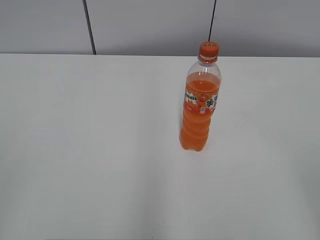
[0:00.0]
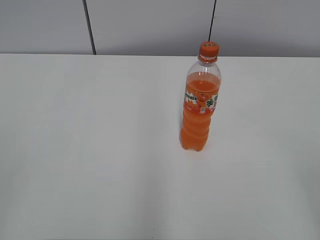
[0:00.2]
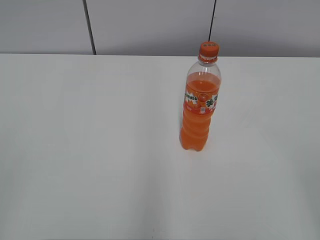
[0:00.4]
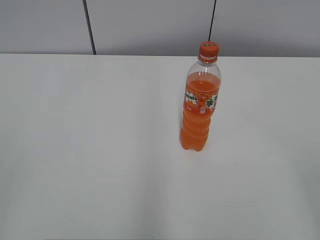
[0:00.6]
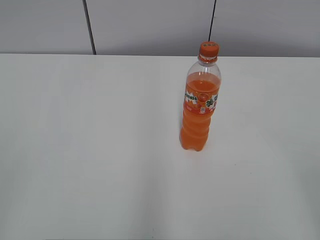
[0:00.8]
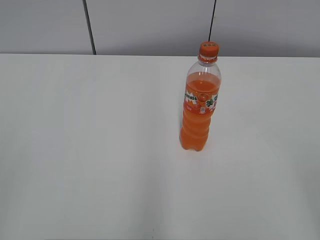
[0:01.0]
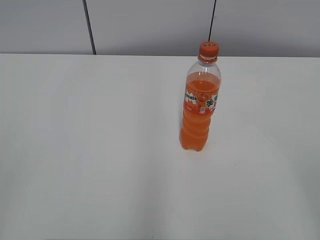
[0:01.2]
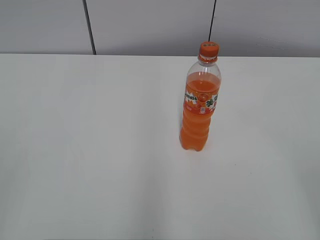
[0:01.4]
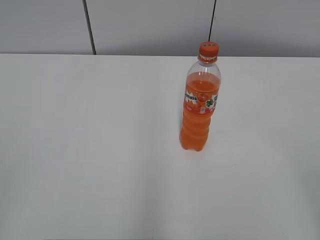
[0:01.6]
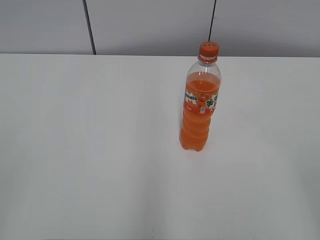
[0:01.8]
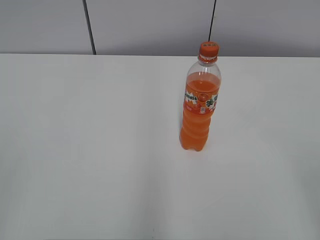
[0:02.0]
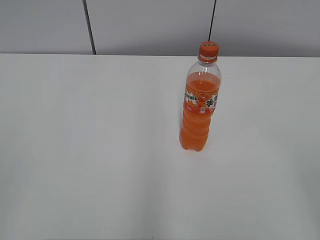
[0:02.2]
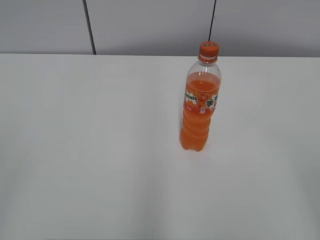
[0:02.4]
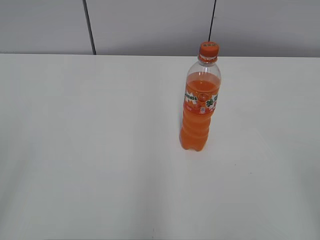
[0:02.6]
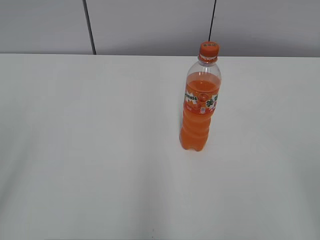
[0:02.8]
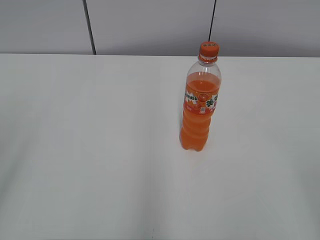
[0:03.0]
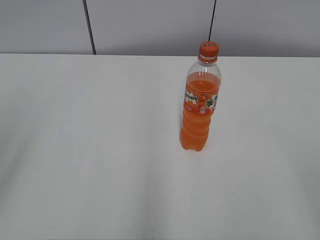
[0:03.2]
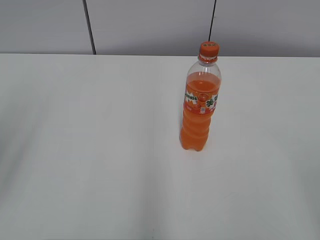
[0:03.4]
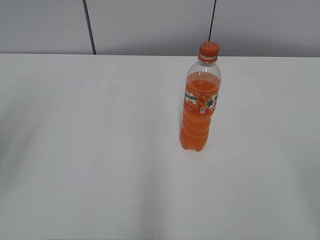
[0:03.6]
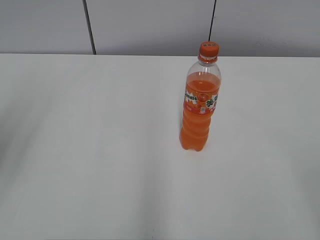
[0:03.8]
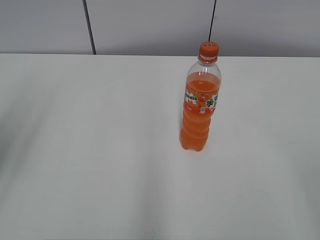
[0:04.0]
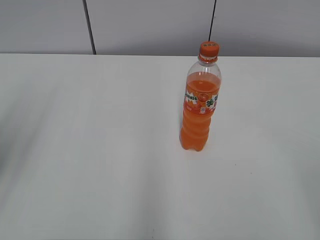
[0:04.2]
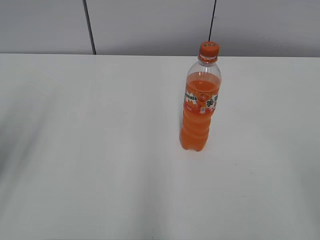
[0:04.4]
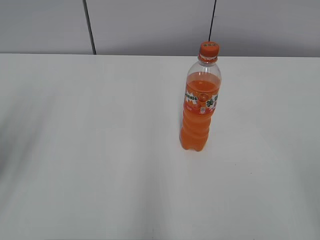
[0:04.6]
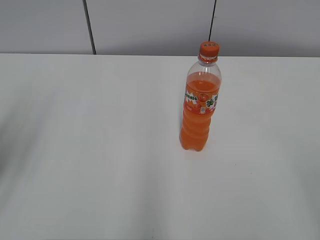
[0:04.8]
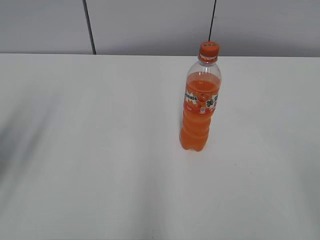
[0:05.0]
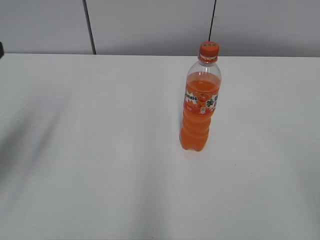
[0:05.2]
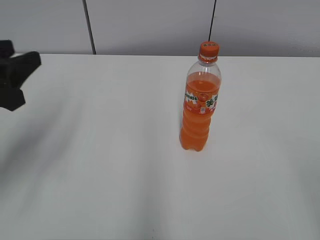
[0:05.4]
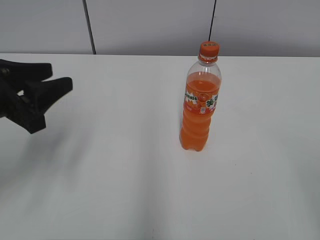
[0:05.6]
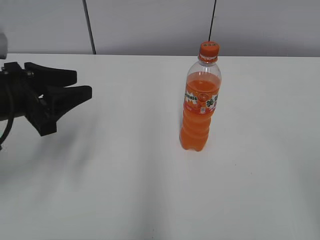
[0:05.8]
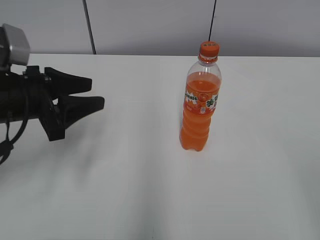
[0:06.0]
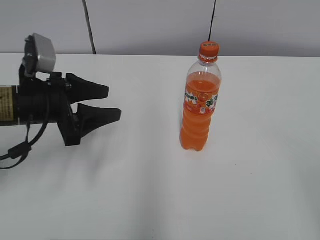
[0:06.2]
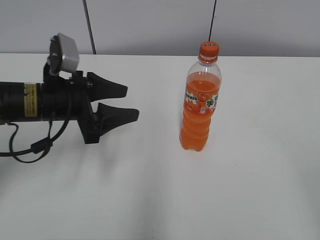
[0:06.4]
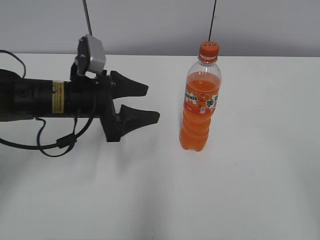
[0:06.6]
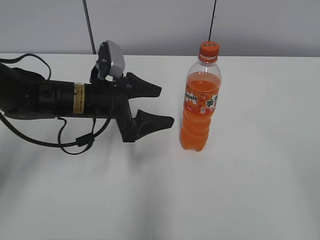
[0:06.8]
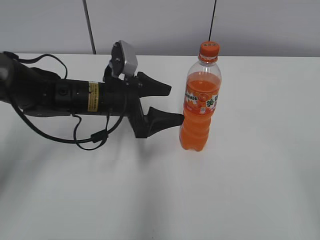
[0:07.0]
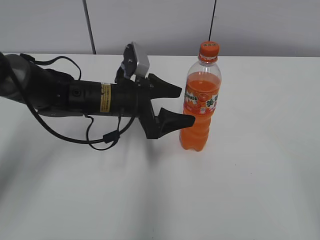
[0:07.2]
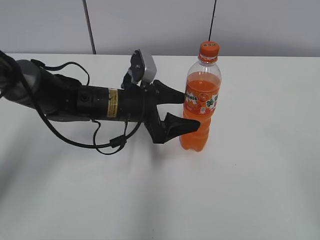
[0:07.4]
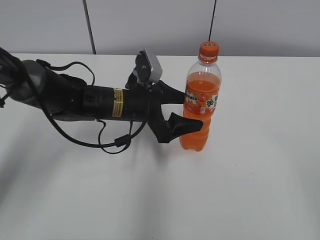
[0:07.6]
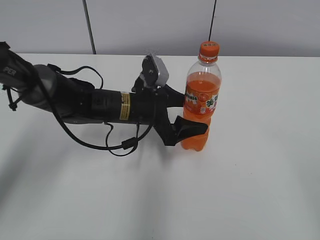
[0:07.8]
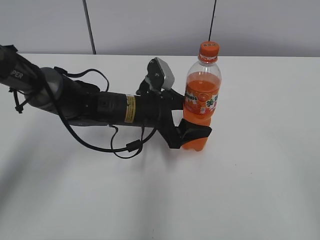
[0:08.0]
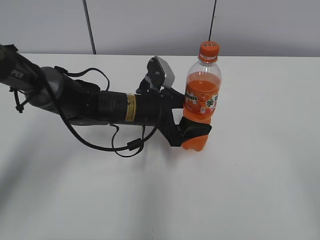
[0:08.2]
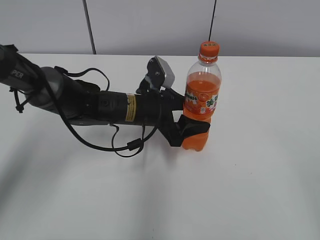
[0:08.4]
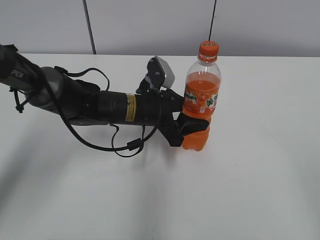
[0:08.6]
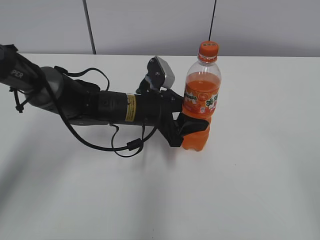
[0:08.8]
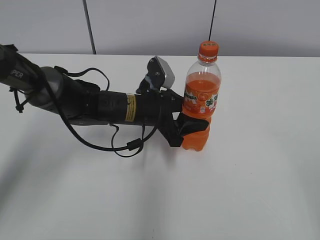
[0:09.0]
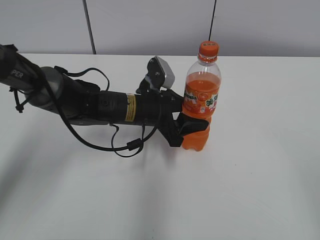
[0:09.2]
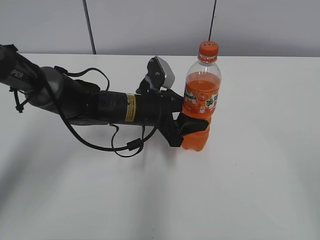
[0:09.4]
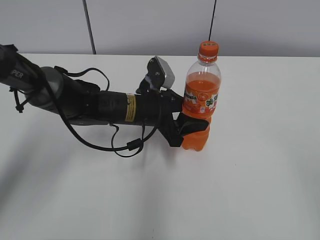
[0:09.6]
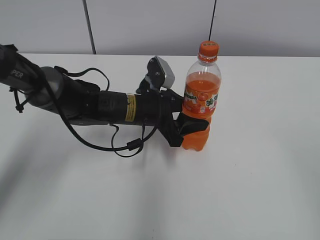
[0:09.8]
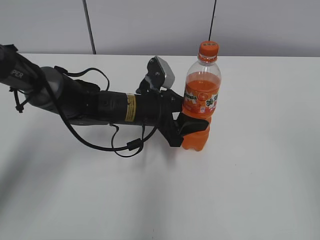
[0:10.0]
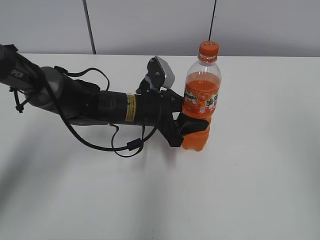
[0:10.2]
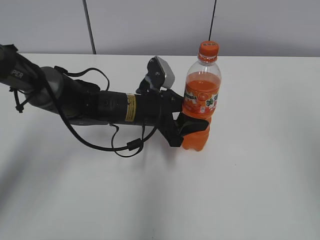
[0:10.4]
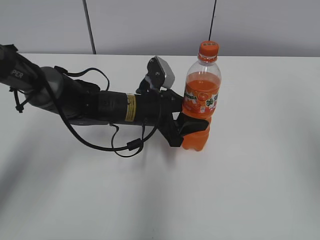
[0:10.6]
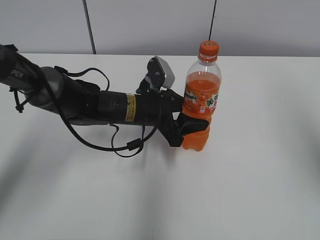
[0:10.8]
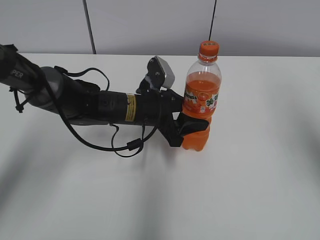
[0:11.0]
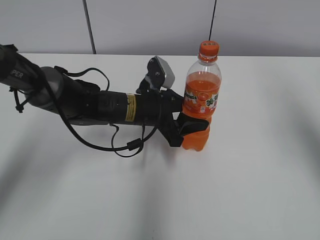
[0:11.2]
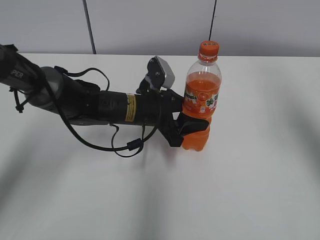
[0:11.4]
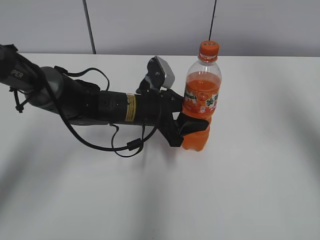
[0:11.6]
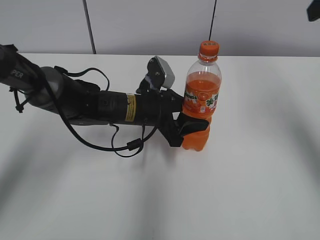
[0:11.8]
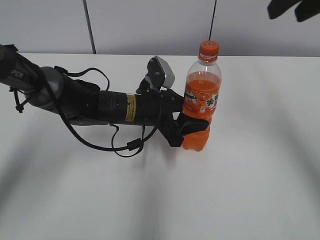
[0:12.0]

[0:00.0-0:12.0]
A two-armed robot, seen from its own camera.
Step, 0:00.0 to 0:08.6: Grab the Mirinda with the left hand.
0:04.4 to 0:06.0: The left gripper shifts roughly 15 cm downward, forward and to the right.
0:06.0 to 0:07.6: The left gripper moves to the right, forward and downward, roughly 20 cm, and opens.
0:07.6 to 0:09.0: The left gripper closes.
0:10.4 to 0:12.0: The right gripper goes roughly 25 cm forward and to the left.

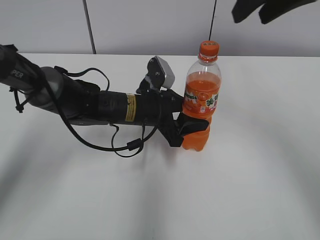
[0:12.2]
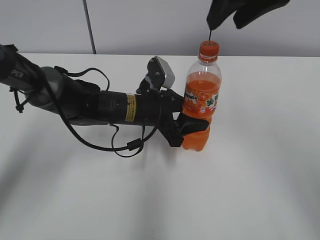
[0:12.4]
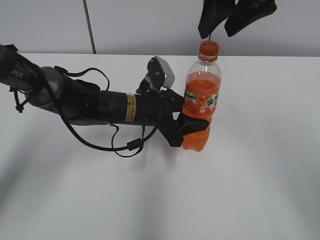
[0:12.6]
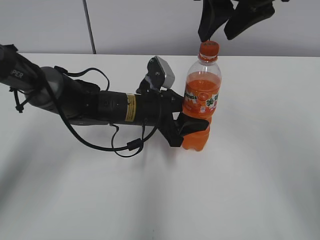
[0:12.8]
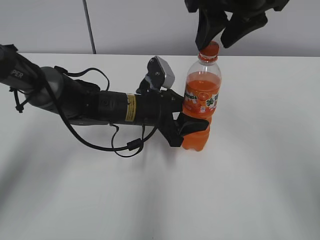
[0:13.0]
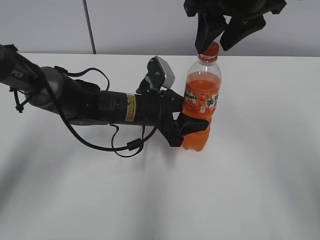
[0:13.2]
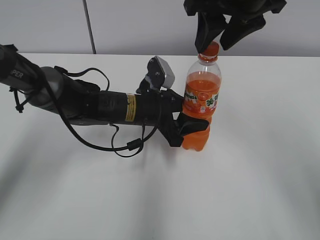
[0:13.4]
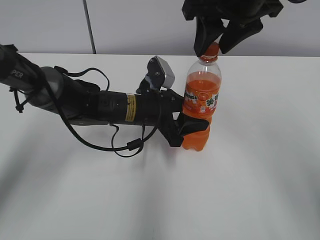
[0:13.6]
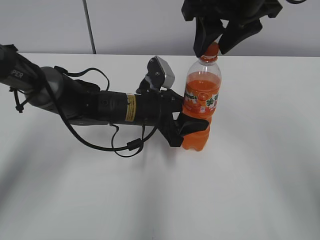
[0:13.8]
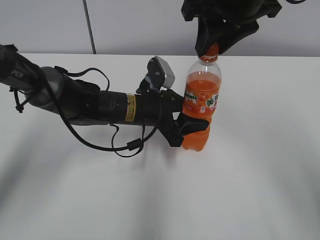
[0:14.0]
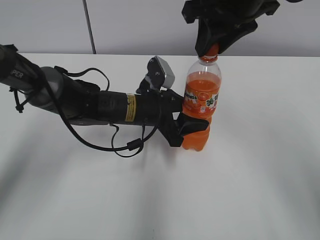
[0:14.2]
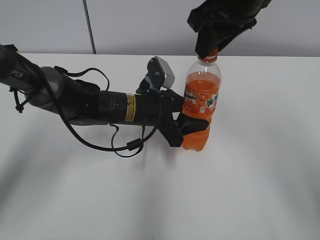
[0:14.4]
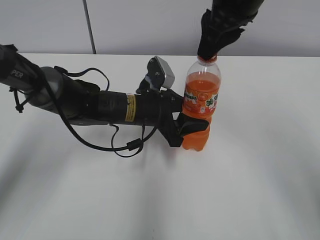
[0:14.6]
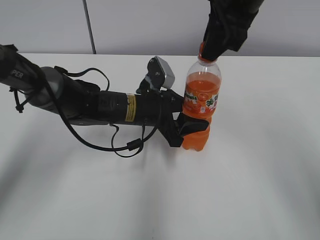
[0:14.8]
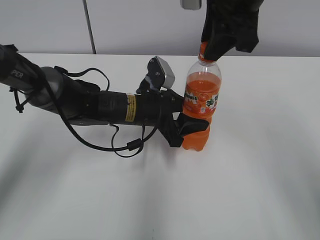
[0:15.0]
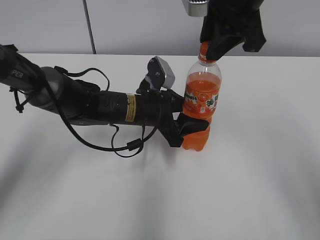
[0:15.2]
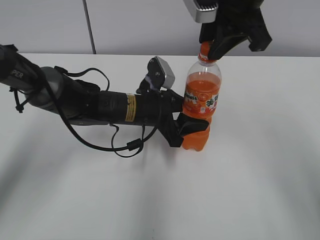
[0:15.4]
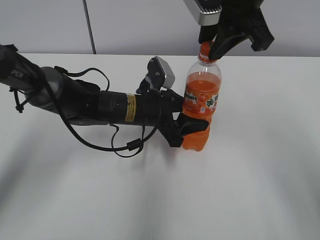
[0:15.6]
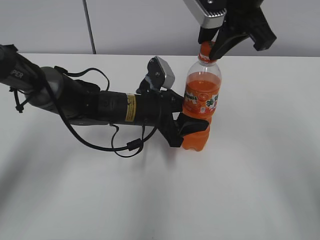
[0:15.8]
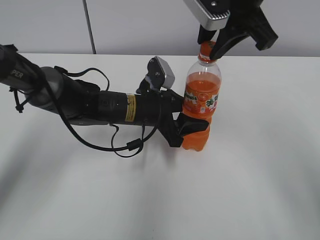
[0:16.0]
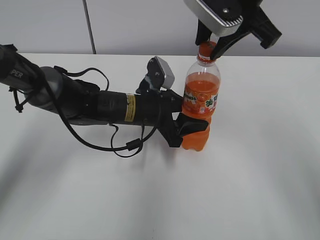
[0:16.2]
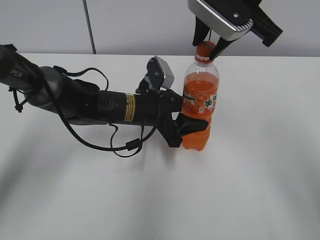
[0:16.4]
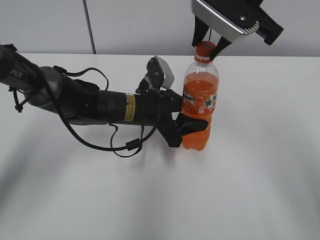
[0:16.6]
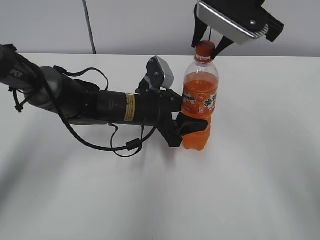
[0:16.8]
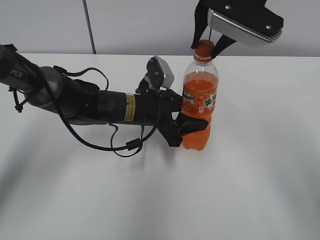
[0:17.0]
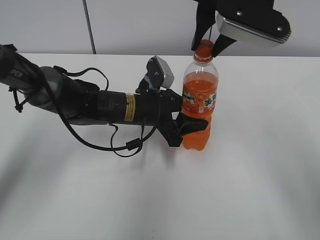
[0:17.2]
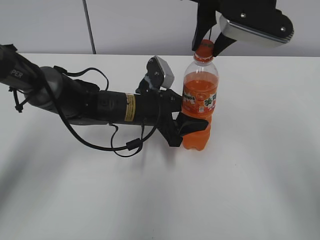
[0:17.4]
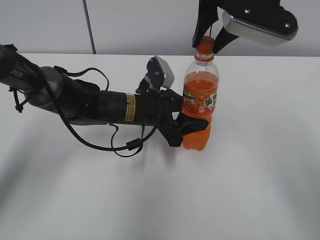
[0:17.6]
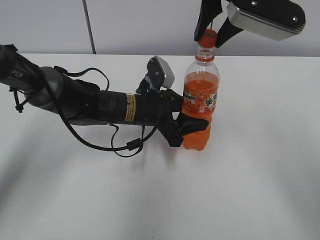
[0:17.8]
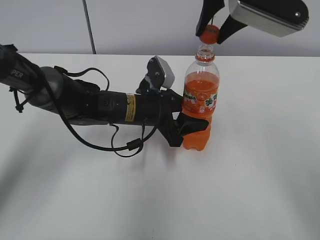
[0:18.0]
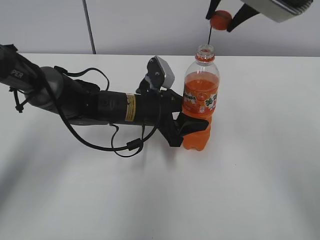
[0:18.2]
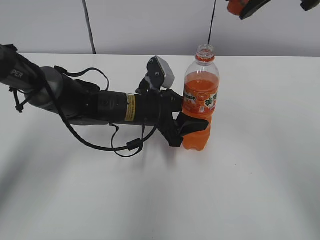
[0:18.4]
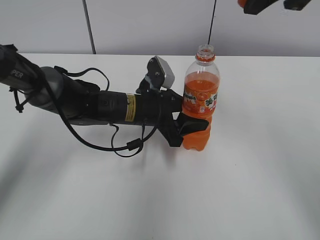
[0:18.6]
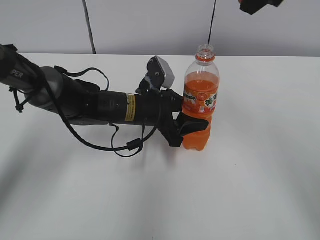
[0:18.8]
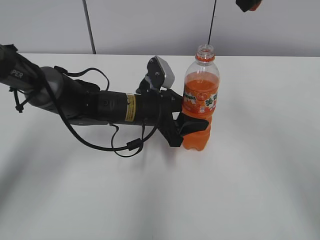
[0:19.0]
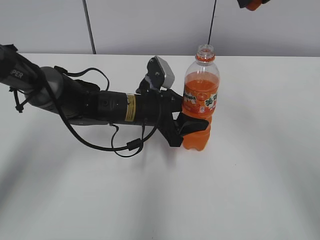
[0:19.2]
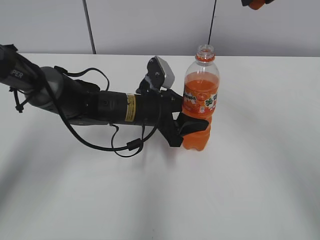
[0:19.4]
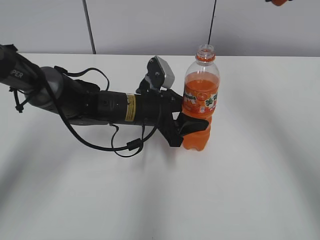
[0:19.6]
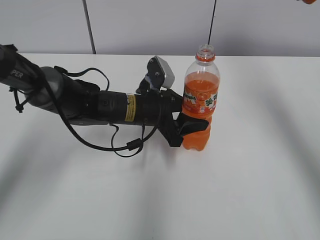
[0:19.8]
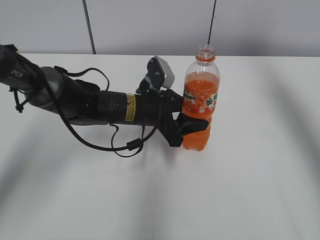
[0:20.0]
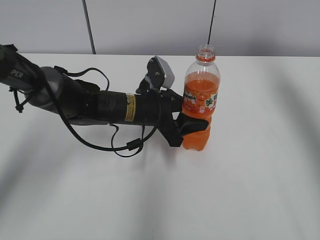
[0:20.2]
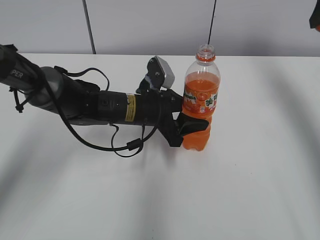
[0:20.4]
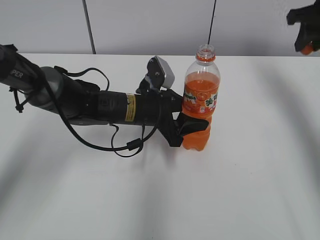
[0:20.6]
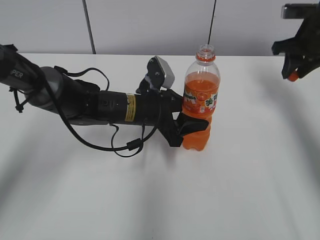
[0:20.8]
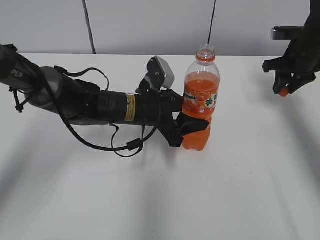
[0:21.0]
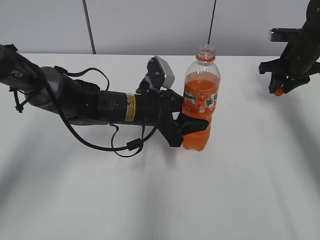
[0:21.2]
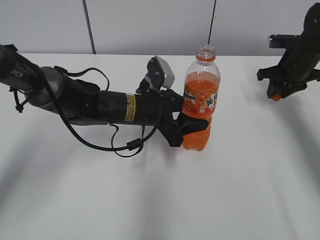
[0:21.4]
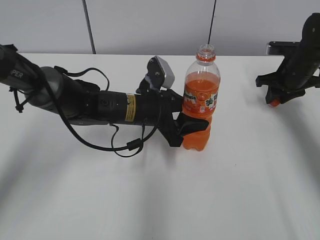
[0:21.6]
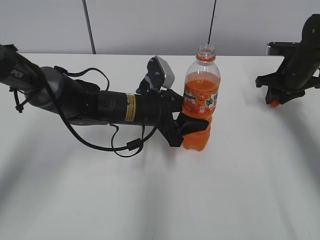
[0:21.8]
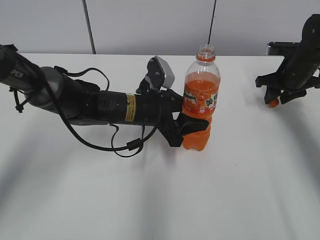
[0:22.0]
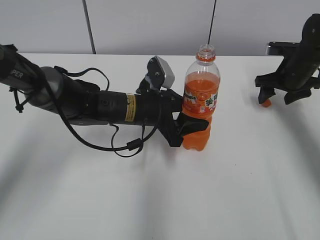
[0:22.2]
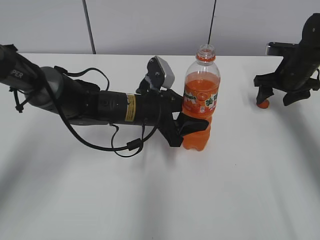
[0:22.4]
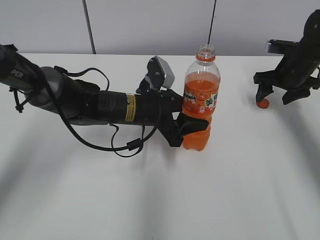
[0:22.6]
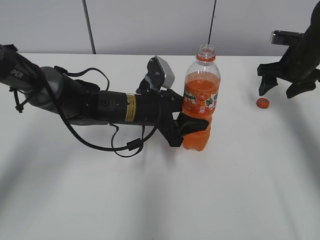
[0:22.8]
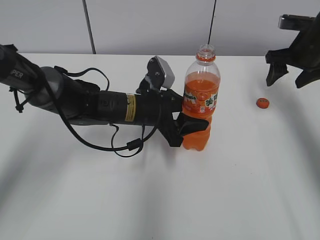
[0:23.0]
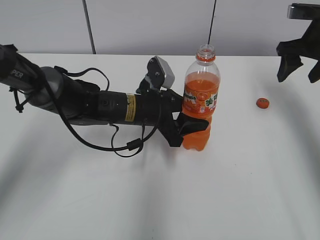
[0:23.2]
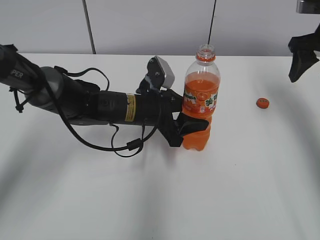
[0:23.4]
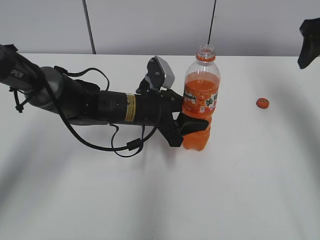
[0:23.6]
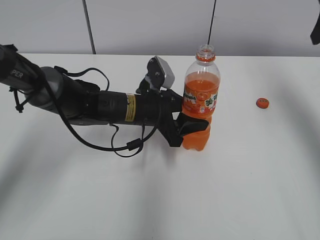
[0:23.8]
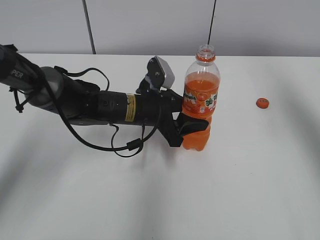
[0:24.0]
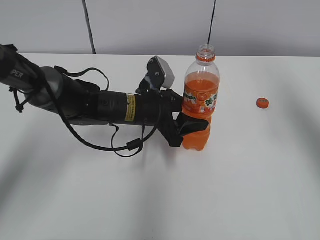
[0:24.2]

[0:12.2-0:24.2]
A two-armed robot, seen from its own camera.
Step, 0:18.0 to 0:22.2: Place the bottle cap on the right.
0:12.2 to 0:13.8: The right gripper shifts approximately 10 cm downward and to the left.
0:13.8 to 0:15.2: The right gripper closes.
0:16.6 to 0:18.2: The right gripper ends up some 5 cm from where it was.
0:18.2 to 0:19.8: The right gripper goes approximately 10 cm to the right.
0:19.8 to 0:21.2: The right gripper moves downward and forward, roughly 25 cm.
0:21.2 to 0:22.6: The right gripper opens its fingers.
0:22.6 to 0:24.2: The right gripper is displaced upward and backward by some 30 cm.
